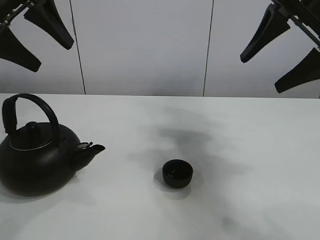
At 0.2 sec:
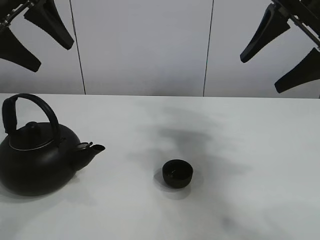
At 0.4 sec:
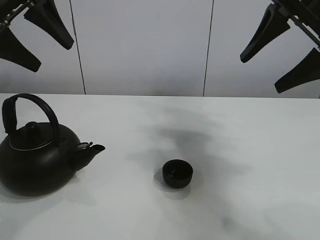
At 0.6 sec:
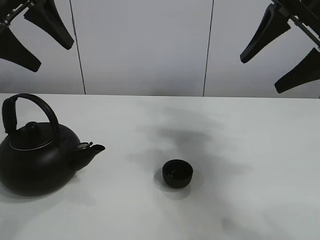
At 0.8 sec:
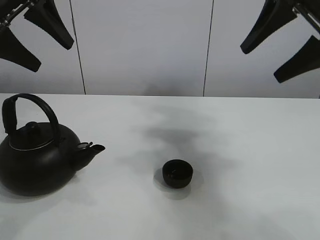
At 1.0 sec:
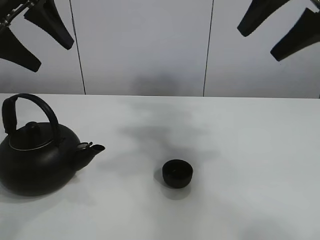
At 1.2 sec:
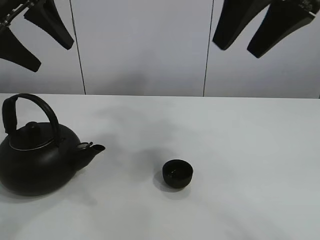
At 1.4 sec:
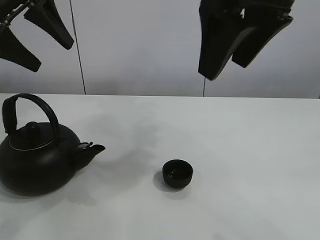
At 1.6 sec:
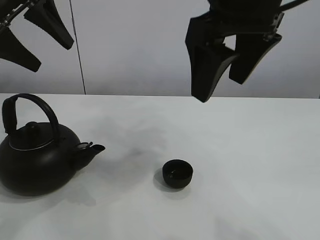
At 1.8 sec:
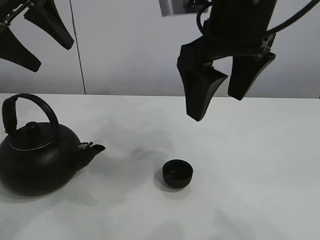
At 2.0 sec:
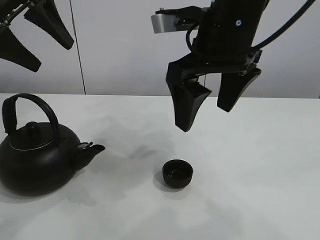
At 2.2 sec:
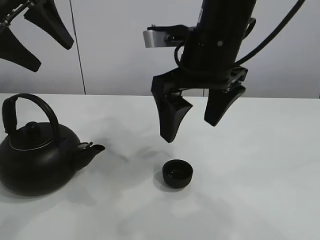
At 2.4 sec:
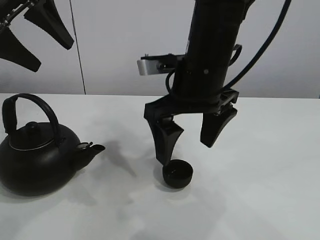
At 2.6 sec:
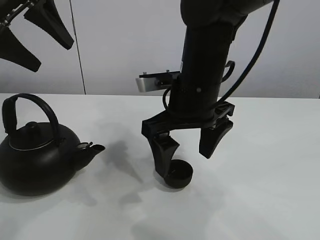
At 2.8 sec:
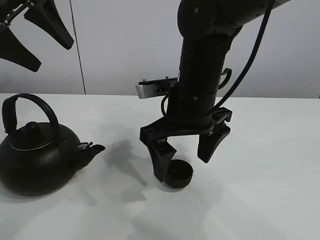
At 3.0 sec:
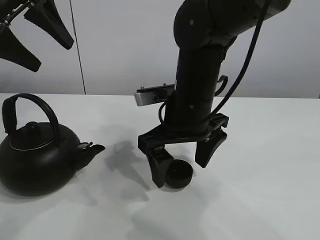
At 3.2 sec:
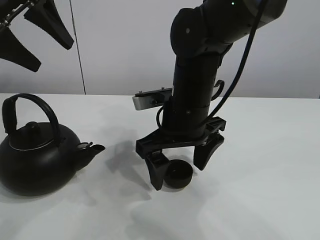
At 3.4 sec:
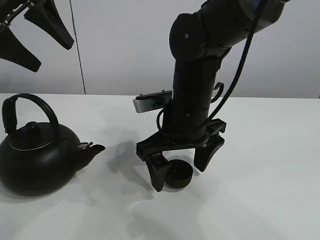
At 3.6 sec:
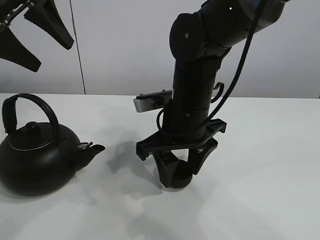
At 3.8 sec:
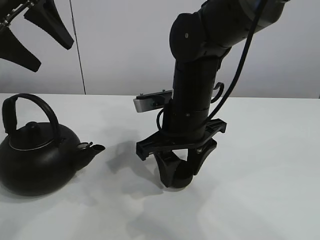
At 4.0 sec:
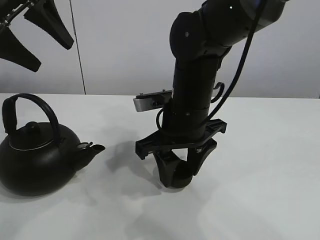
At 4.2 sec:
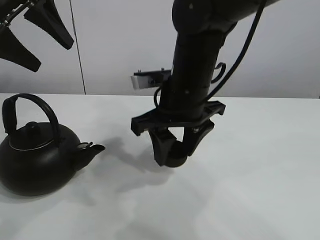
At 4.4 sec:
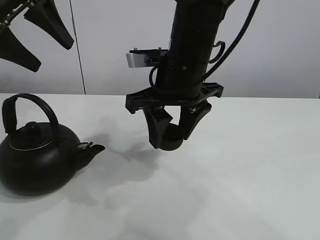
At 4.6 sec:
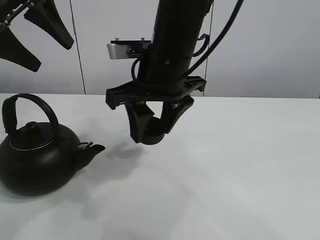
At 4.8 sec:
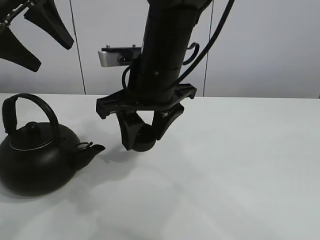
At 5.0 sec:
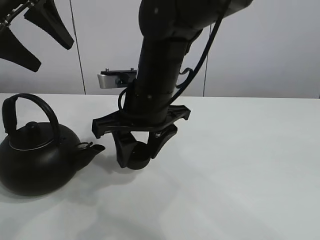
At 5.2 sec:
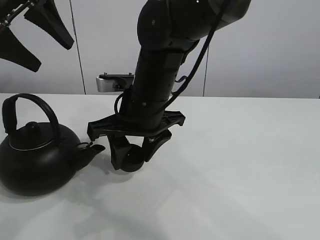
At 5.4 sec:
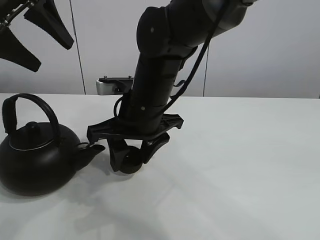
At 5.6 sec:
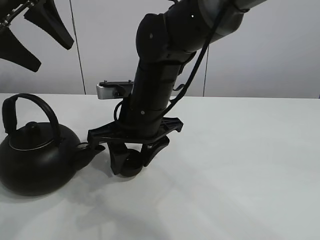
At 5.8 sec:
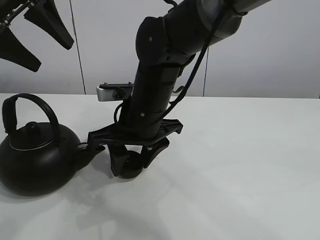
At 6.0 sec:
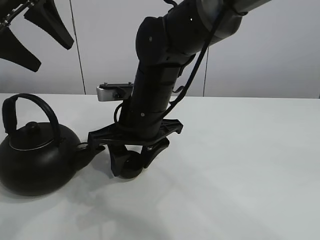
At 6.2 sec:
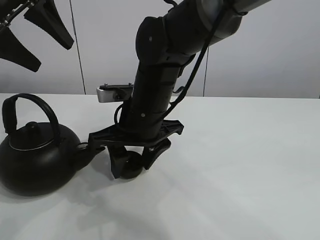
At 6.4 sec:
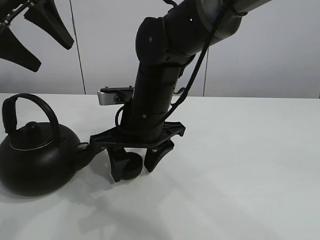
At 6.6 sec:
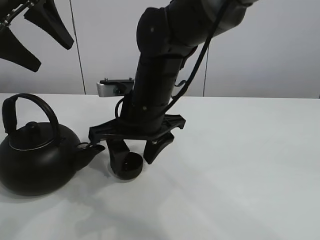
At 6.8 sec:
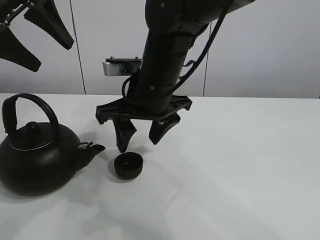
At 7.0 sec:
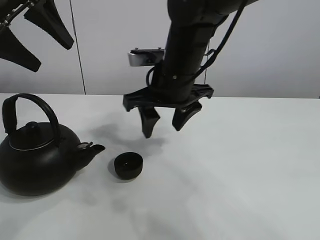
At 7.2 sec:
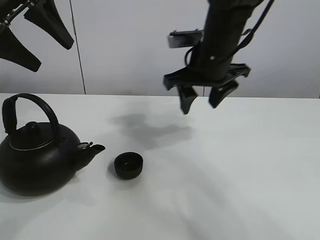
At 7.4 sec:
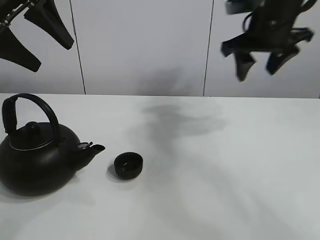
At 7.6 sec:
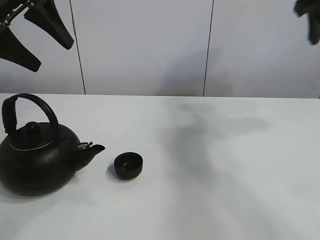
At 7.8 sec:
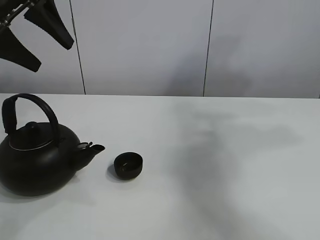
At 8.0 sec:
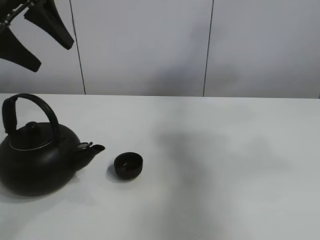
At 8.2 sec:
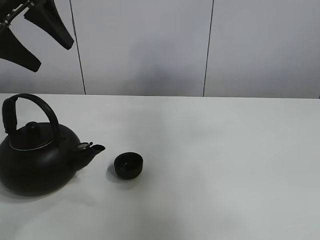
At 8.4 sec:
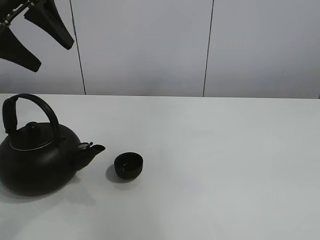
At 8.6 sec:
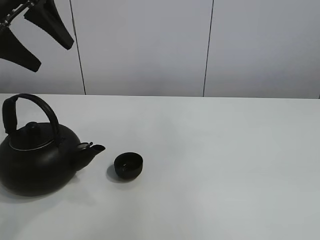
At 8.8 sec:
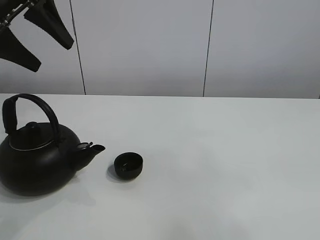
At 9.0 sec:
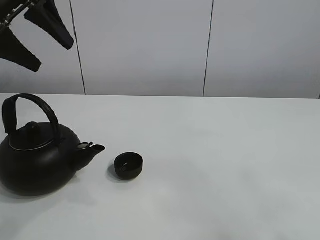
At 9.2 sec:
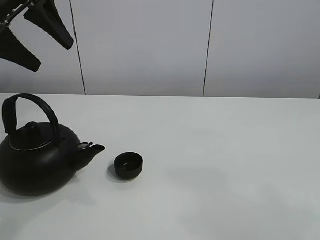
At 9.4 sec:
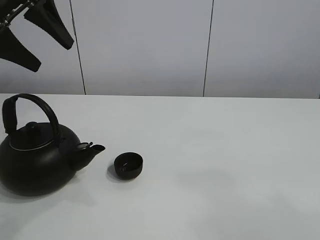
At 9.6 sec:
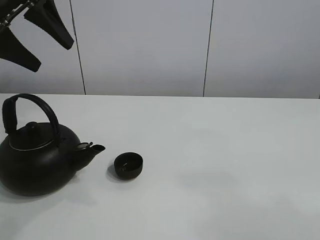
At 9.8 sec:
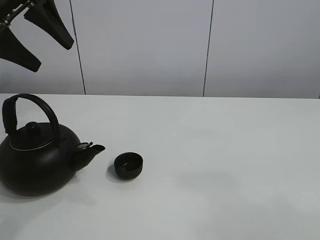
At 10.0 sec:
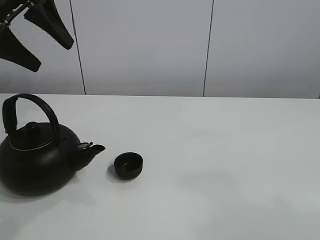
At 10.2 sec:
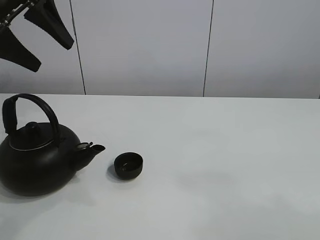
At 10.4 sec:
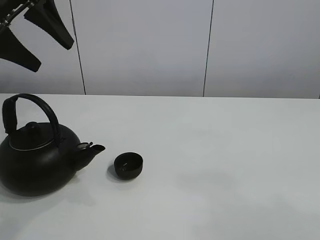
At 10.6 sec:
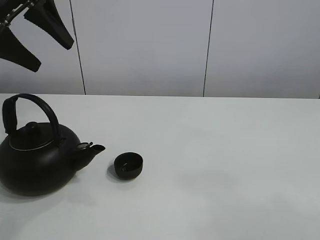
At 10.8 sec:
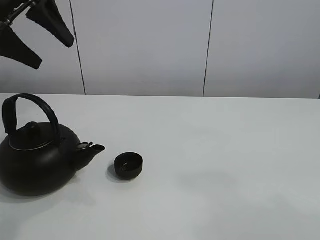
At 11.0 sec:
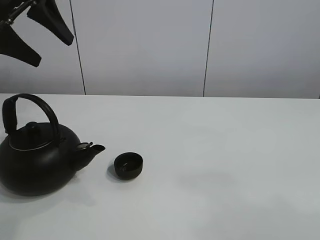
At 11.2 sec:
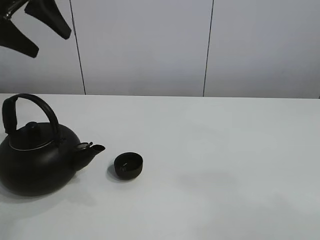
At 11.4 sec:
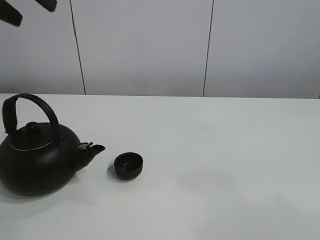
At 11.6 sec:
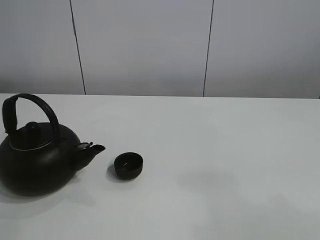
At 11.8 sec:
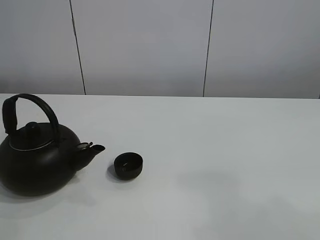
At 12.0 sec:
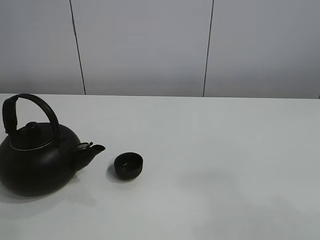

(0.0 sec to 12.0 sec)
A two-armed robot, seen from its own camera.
Task of the whole recording: pour tea into the teacup.
Step, 0.0 sec - 4.0 sec: Pick up the teacup with the right gripper.
Step, 4.2 sec - 6.2 sec: Place the teacup in the center of view with the right gripper.
1.6 sec - 3.0 sec: The right gripper moves downward, about 15 cm.
3.0 sec - 4.4 sec: The right gripper is displaced upward by about 5 cm, and closes up.
4.4 sec - 6.0 sec: The right gripper goes some 10 cm downward and to the left.
6.0 sec - 7.6 sec: The right gripper moves to the right and upward, some 35 cm.
7.6 sec - 9.0 sec: The right gripper is displaced backward by about 40 cm.
10.4 sec - 12.0 sec: The left gripper travels backward by approximately 15 cm.

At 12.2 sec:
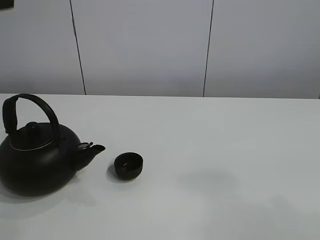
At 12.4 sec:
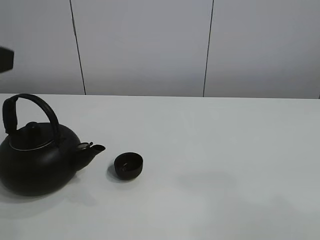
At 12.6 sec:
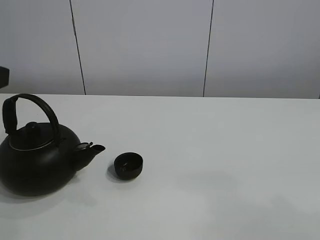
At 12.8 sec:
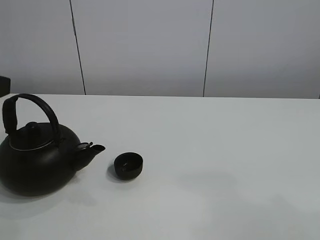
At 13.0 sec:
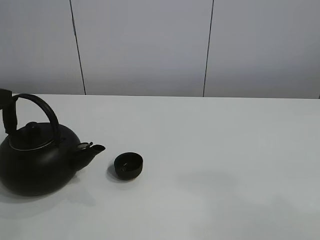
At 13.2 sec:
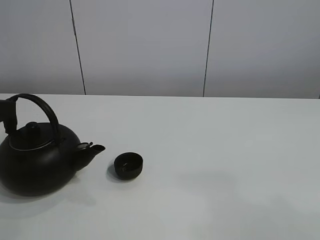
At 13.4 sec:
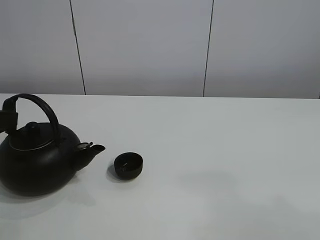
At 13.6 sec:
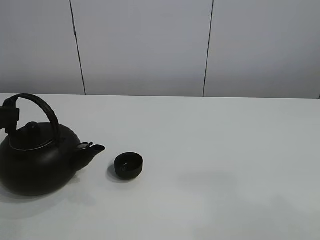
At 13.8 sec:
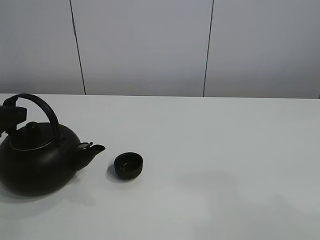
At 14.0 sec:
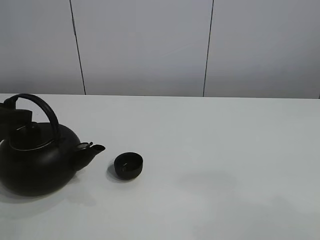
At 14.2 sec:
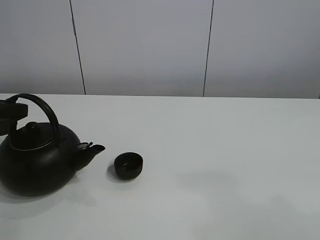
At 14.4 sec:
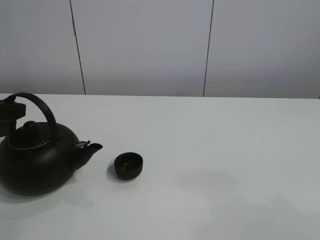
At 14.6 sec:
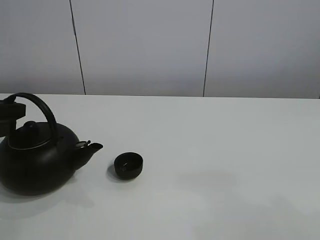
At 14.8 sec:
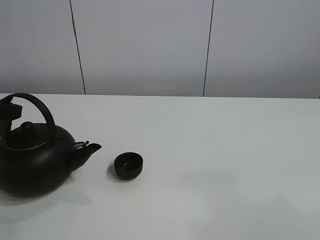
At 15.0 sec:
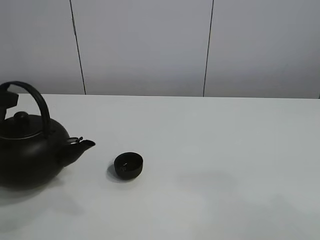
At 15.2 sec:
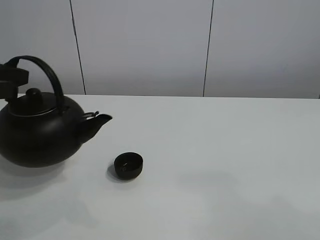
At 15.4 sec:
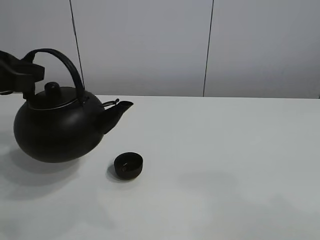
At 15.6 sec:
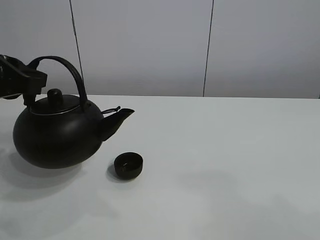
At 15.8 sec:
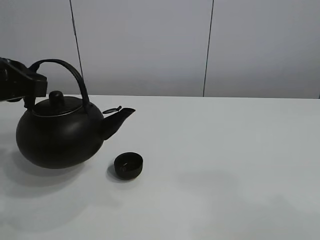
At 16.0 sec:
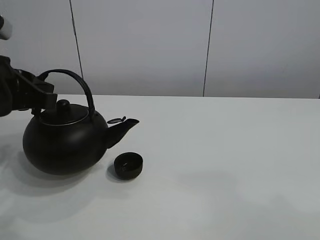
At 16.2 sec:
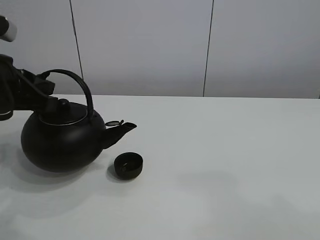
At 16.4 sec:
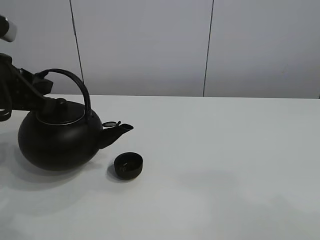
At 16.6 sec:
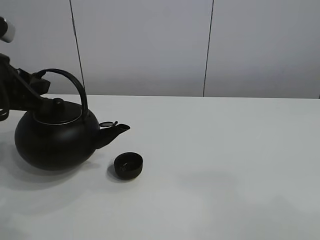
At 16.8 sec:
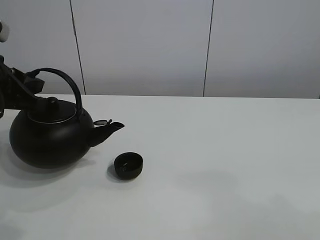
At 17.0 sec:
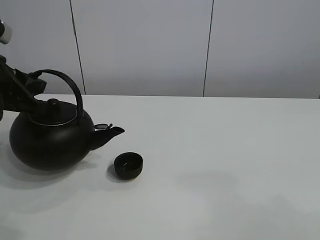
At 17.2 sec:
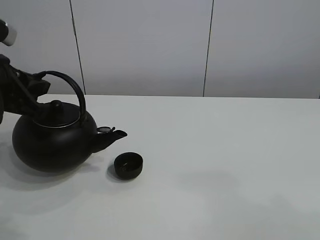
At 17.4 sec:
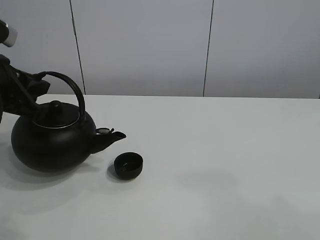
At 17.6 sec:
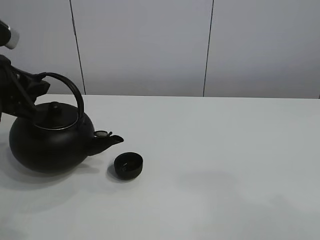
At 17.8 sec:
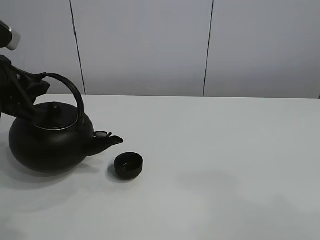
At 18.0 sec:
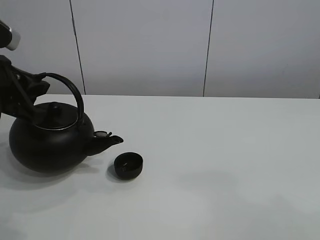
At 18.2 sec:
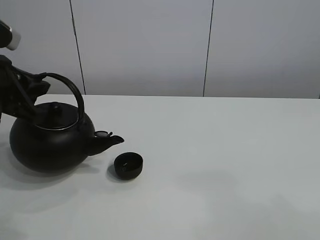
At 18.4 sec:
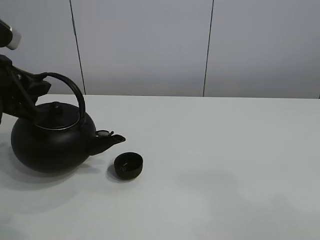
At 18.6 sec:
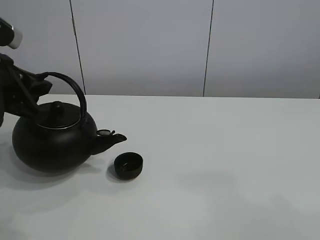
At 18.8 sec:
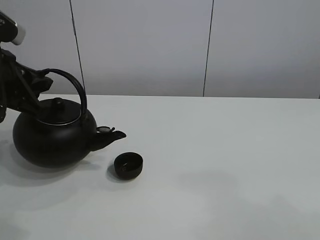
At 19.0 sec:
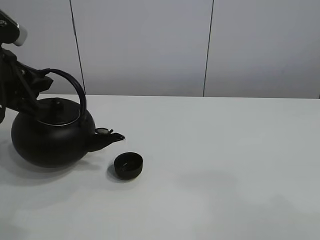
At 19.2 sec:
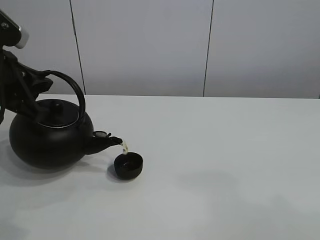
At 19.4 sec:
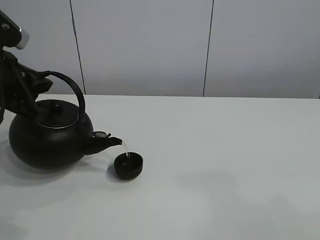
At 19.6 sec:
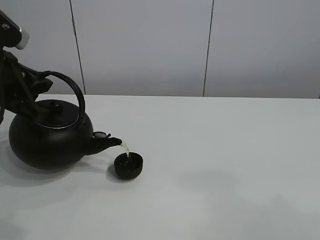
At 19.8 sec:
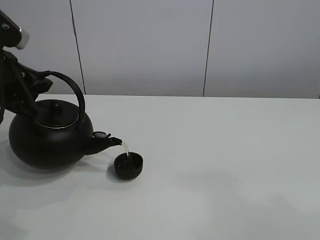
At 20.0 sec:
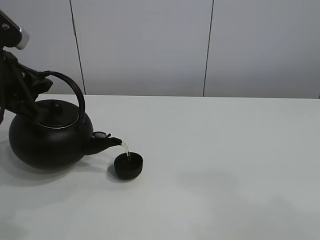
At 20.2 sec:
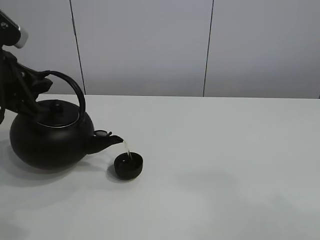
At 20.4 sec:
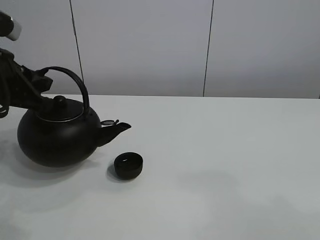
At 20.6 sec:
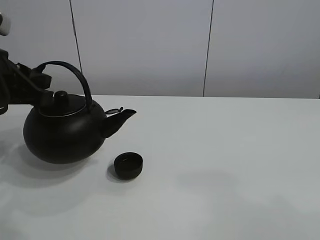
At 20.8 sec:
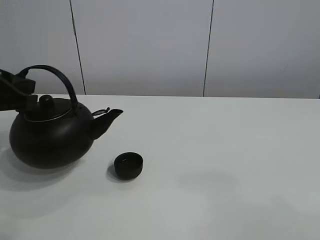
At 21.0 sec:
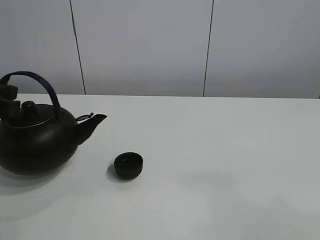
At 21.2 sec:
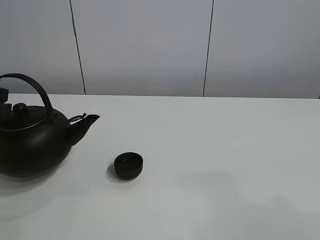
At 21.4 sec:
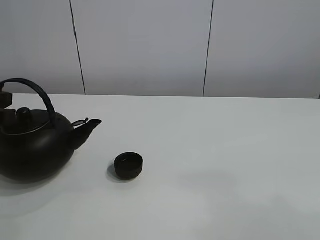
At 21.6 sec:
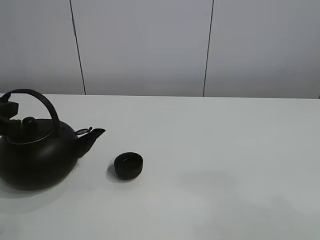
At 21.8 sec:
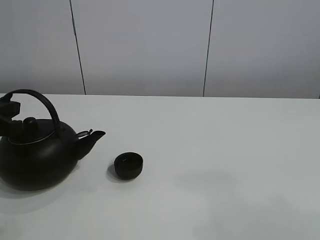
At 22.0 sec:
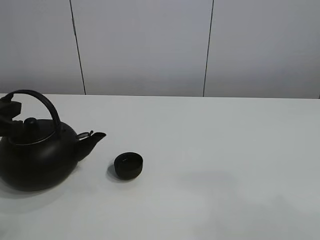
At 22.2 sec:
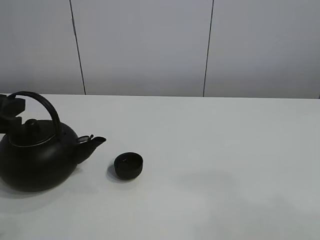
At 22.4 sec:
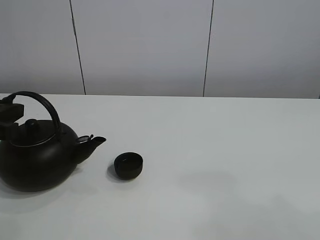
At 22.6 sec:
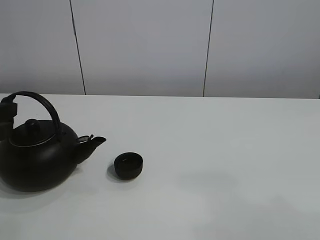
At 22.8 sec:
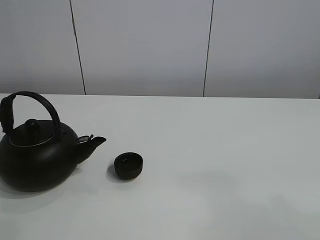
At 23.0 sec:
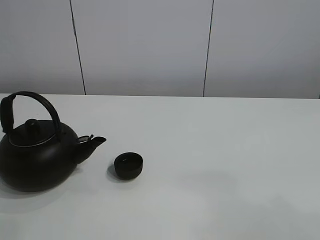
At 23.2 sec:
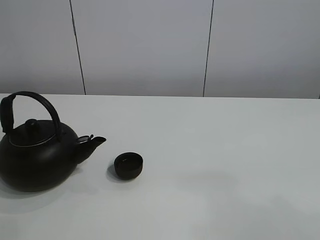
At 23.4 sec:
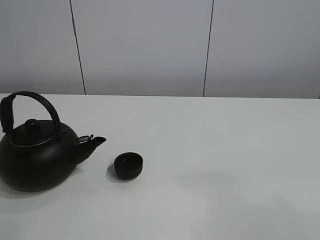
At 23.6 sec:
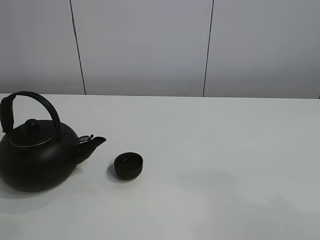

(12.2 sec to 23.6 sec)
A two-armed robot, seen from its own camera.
Task of the whole recording: pour tea into the teacup.
Step, 12.2 sec - 14.8 sec: Pick up the teapot with the left gripper.
Step, 15.0 sec - 20.2 sec: Pour tea into the teacup with the left gripper.
13.6 sec - 15.0 sec: The left gripper closes up.
15.0 sec - 16.4 sec: The left gripper travels to the right by approximately 5 cm.
16.4 sec - 17.8 sec: The grippers stay close to where they were, moving slightly.
17.8 sec - 19.4 sec: Both grippers stay about where they are.
20.8 sec - 22.2 sec: The left gripper opens up.
